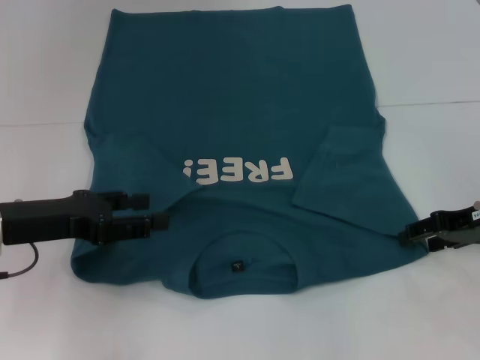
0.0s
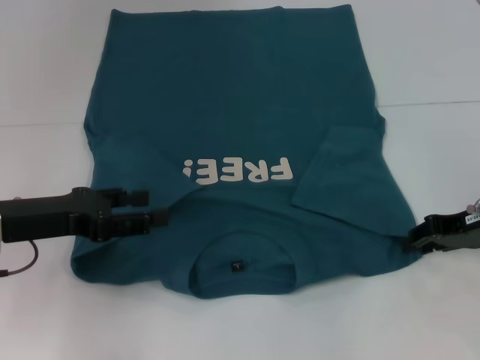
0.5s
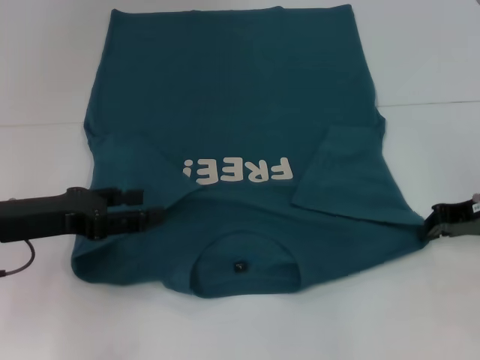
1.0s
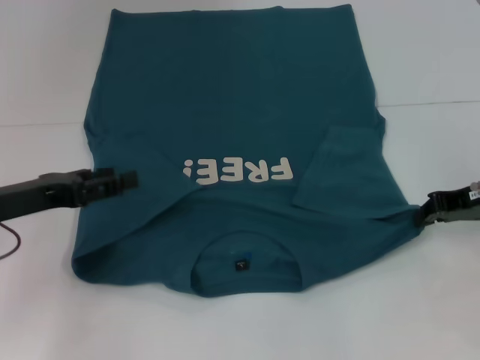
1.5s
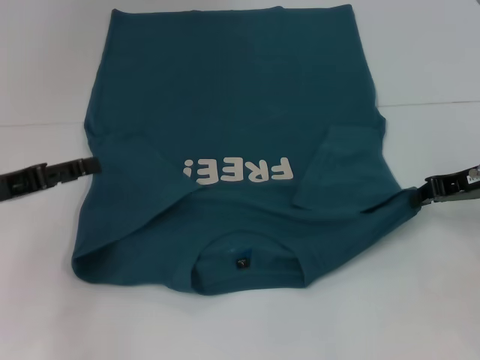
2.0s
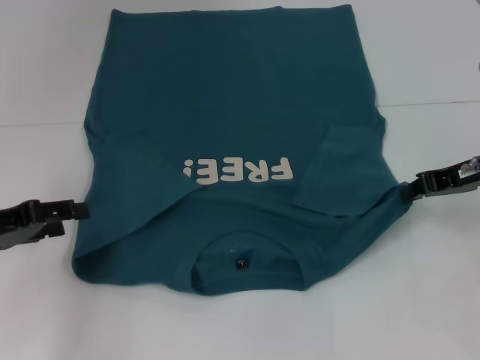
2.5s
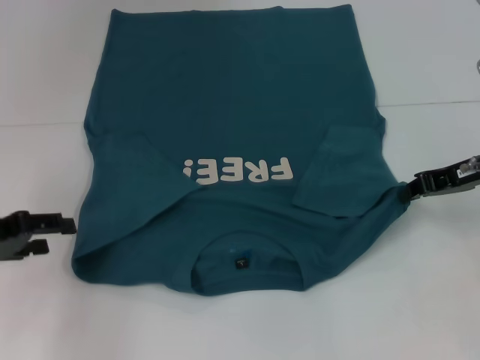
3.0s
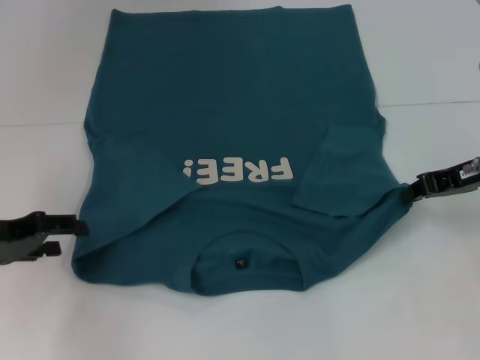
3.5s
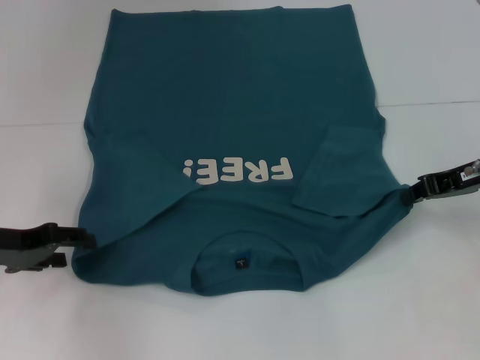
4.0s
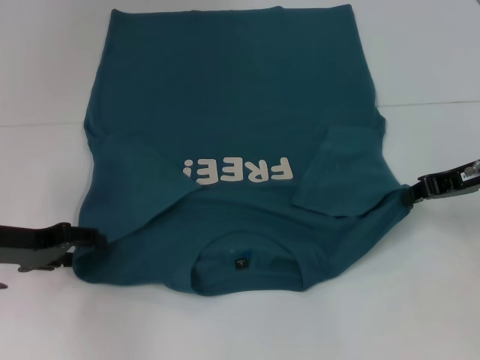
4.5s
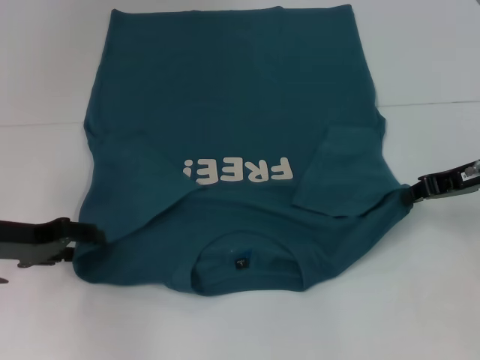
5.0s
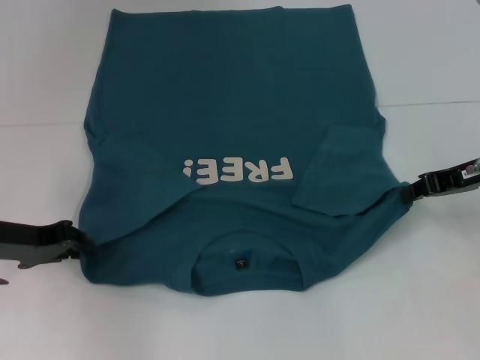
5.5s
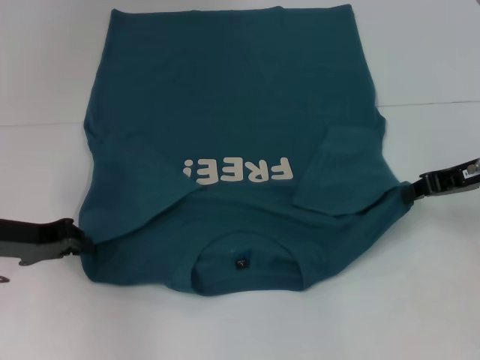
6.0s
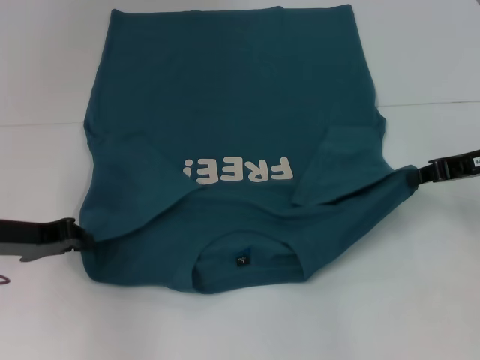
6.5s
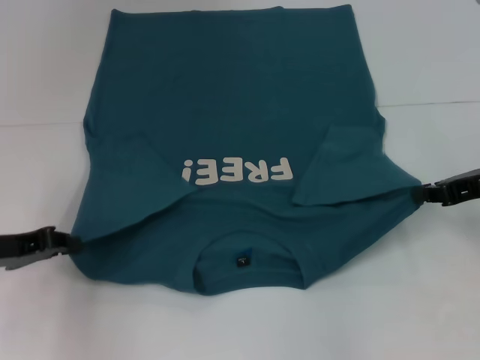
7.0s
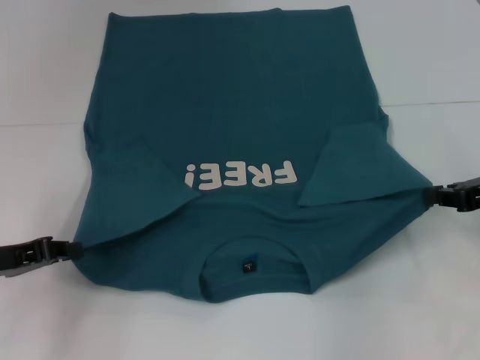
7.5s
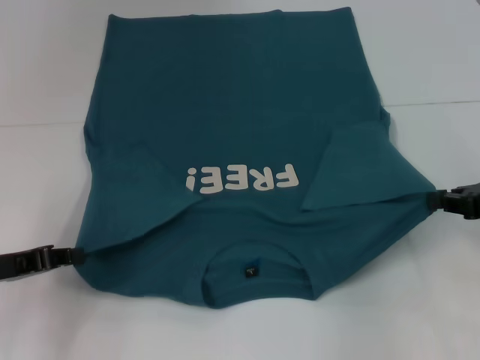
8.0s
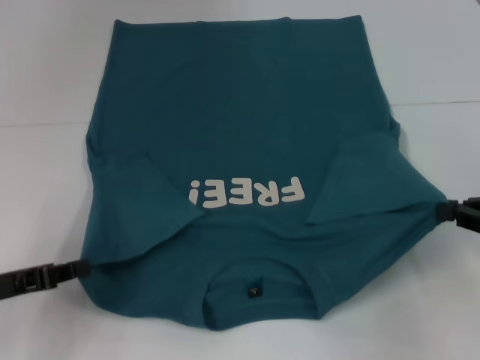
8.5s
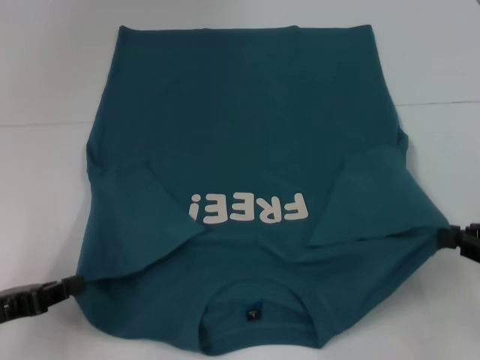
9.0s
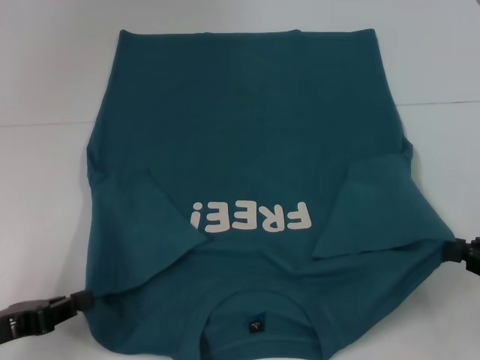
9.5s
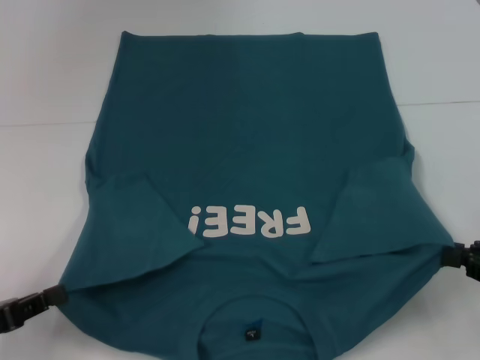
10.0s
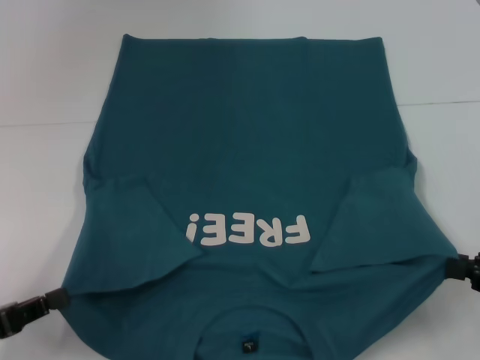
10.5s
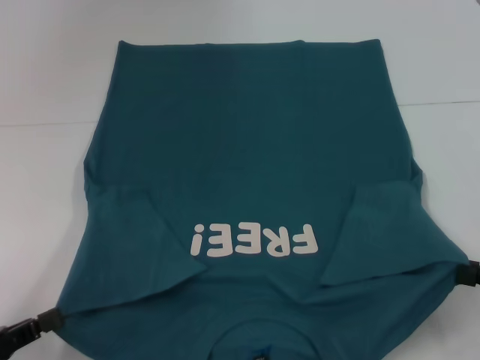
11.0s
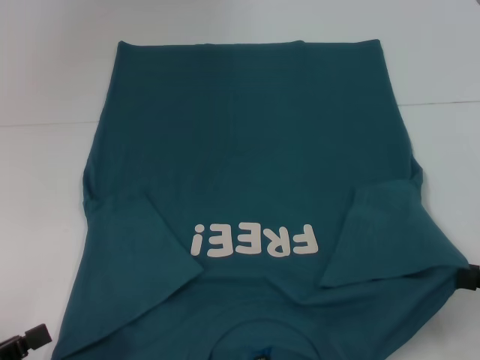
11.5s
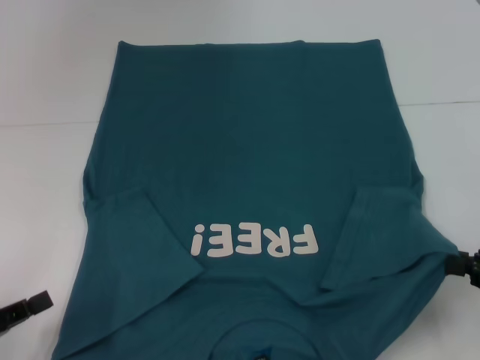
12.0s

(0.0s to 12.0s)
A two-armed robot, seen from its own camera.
Step, 1.0s - 6.0s: Grab the bottom left corner with your left hand.
0.0s - 2.0s: The right gripper closes.
4.0s - 6.0s: The left gripper closes its fingers.
6.0s - 8.0s: The two grippers go about 5 cm backward.
8.0s - 10.0s: The two grippers go some 10 cm backward.
10.0s - 12.0s: The grippers stay close to where they were, moving slightly.

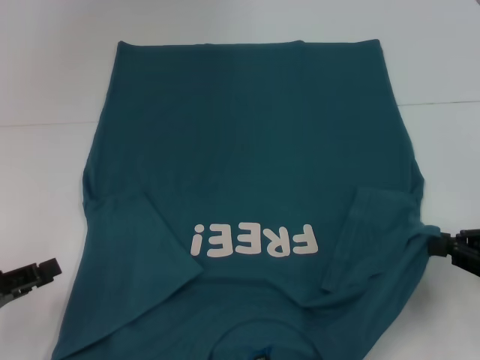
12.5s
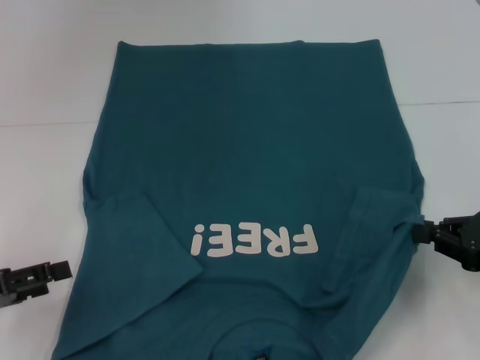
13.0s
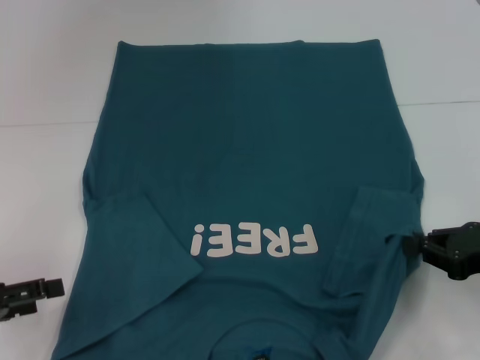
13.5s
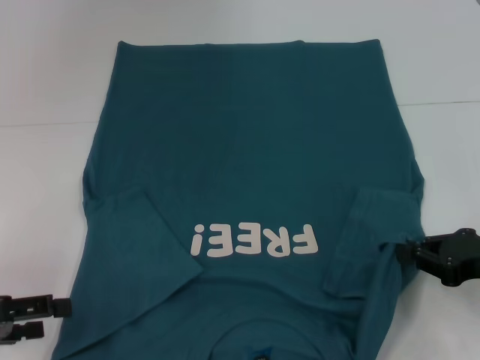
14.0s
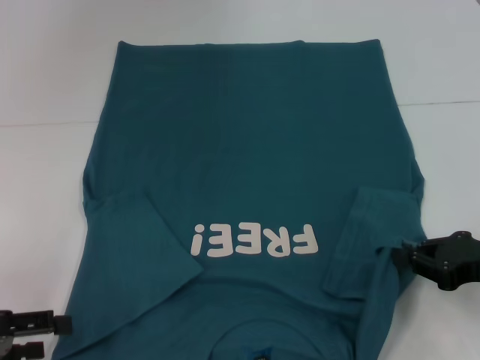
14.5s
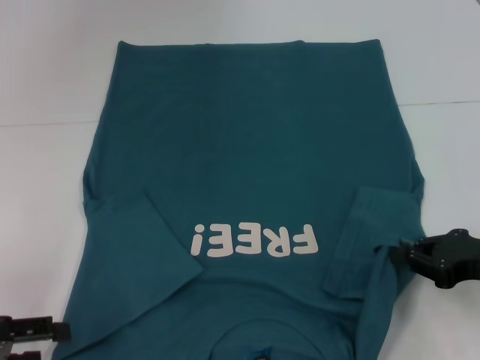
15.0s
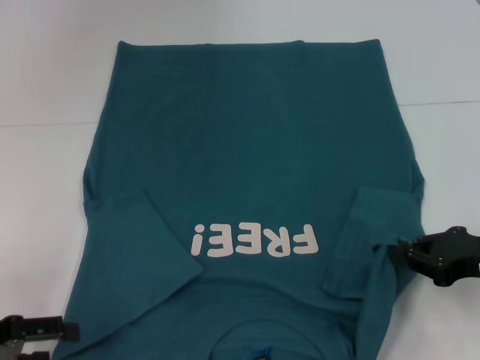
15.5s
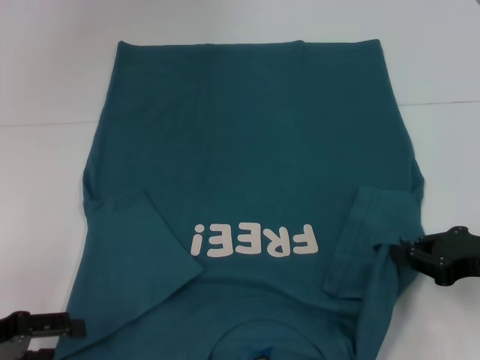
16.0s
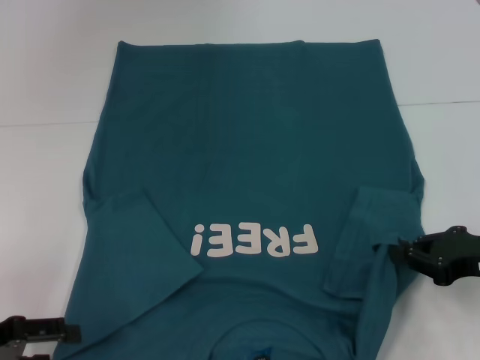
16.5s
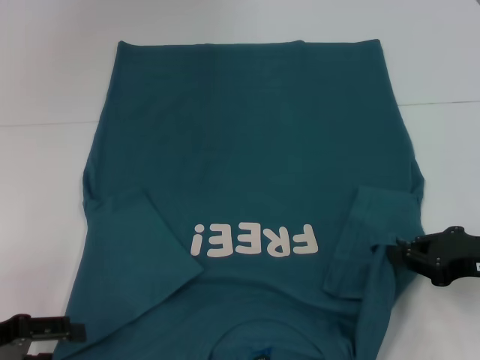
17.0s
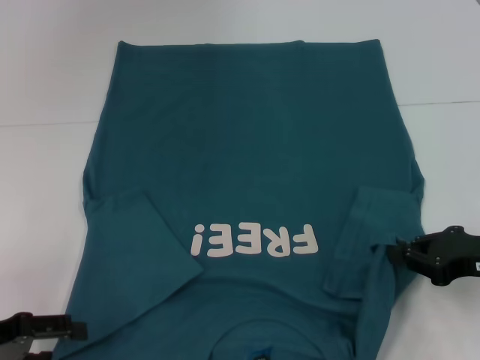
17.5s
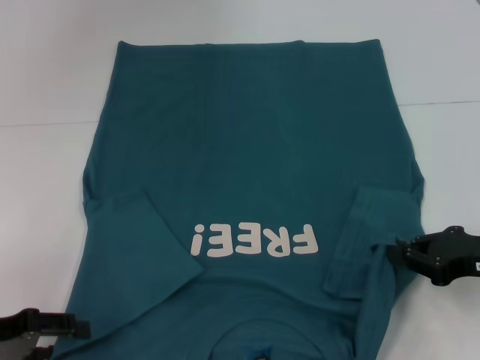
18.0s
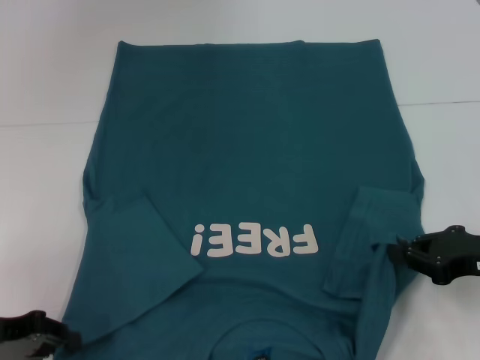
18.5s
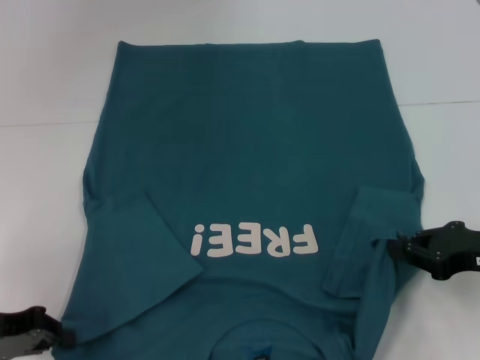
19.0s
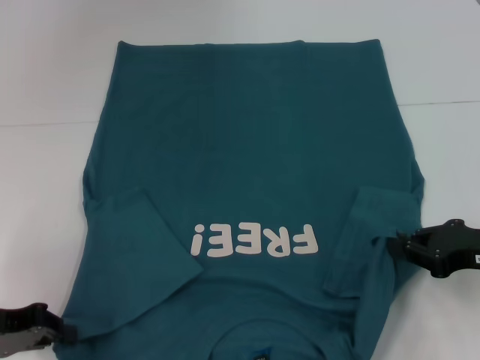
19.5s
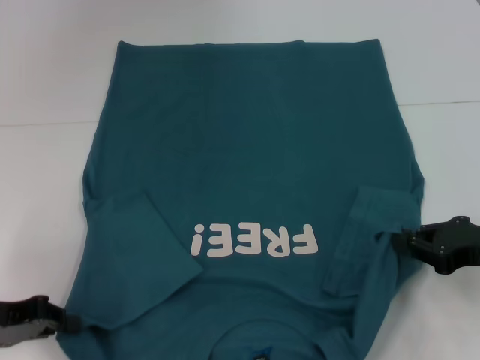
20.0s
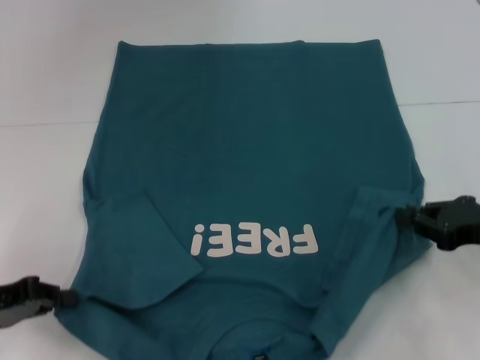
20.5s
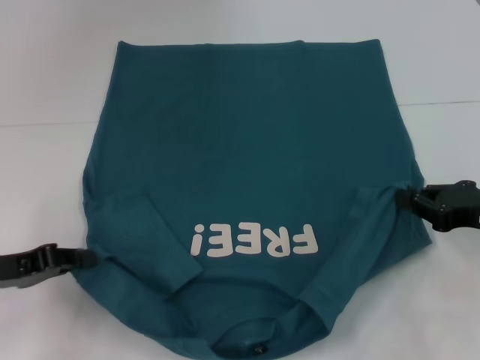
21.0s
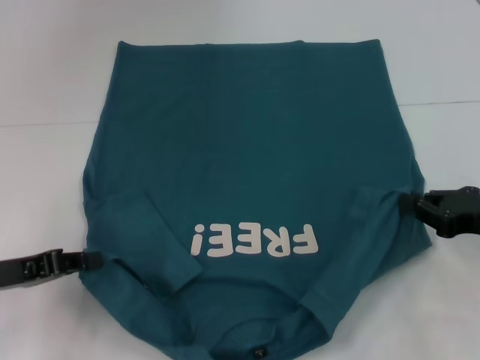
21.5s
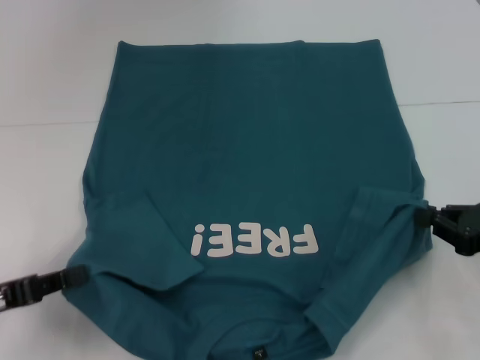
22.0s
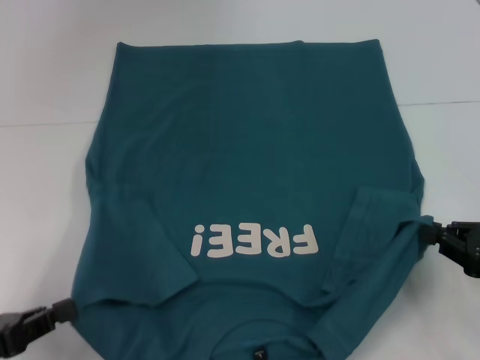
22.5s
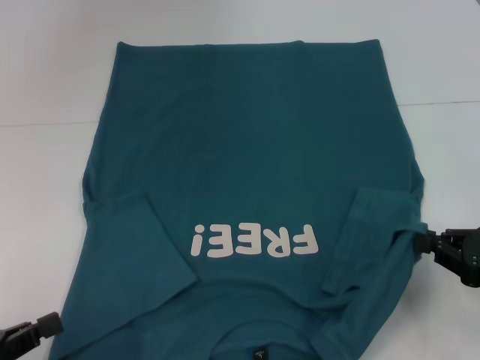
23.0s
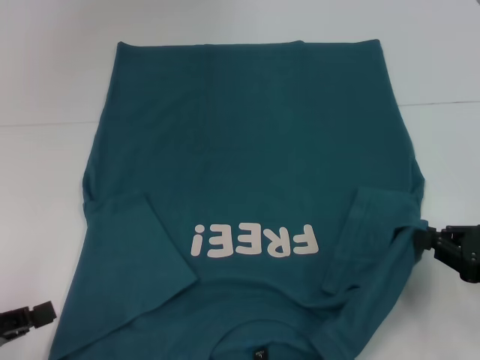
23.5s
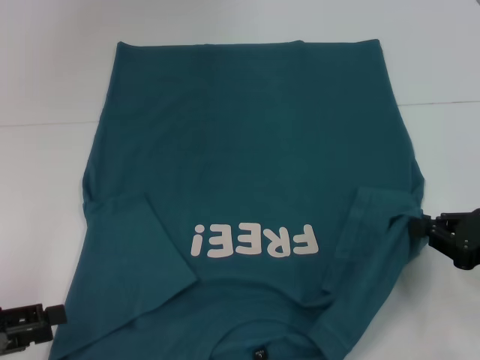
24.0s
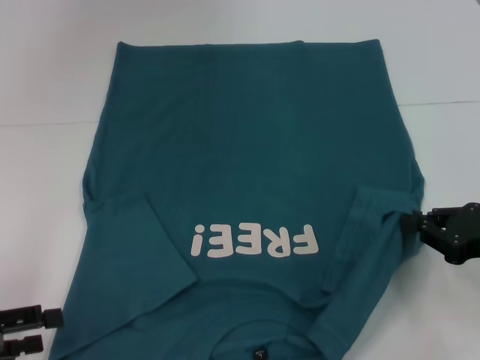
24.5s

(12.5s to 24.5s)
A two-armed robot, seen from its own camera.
12.5s - 14.5s: The left gripper opens up.
14.5s - 16.5s: The grippers make only small movements.
16.5s - 18.5s: The left gripper closes up.
18.5s - 20.5s: The left gripper closes.
20.5s - 22.5s: The left gripper heads backward, covering some 5 cm.
22.5s - 24.5s: The left gripper opens up.

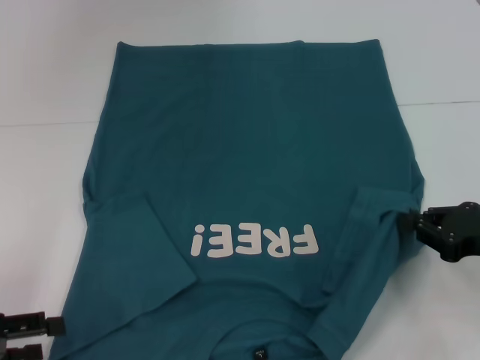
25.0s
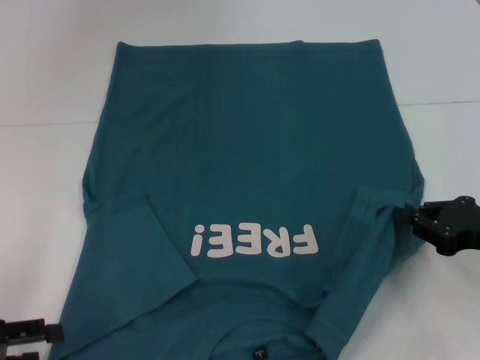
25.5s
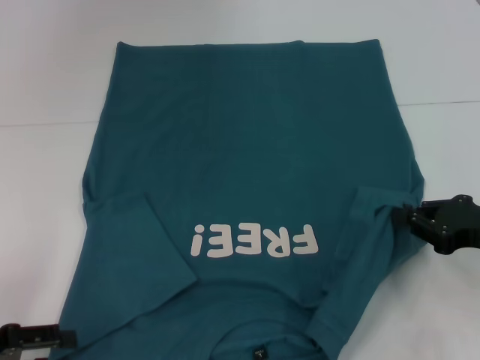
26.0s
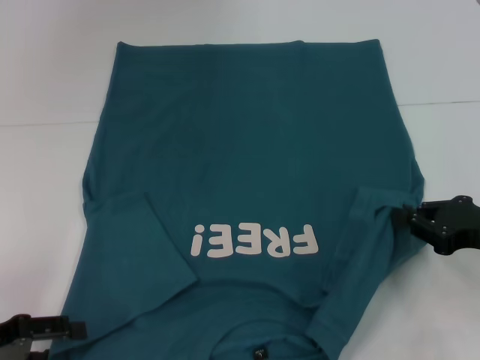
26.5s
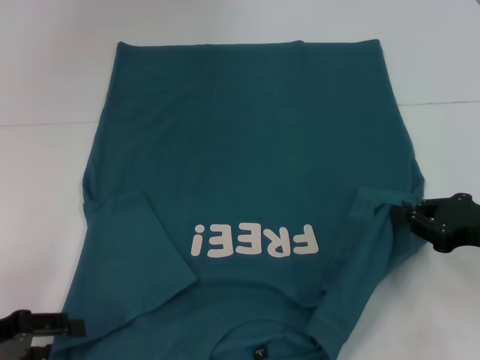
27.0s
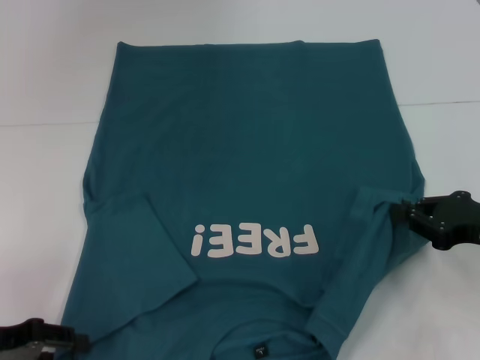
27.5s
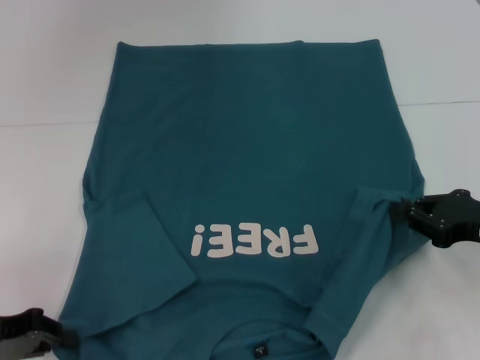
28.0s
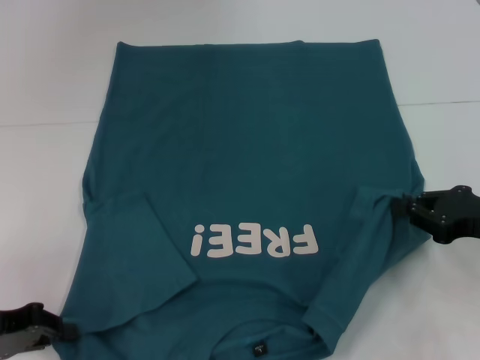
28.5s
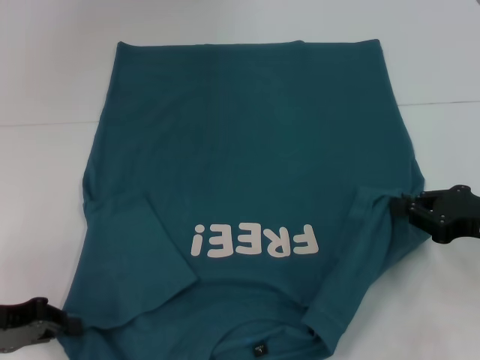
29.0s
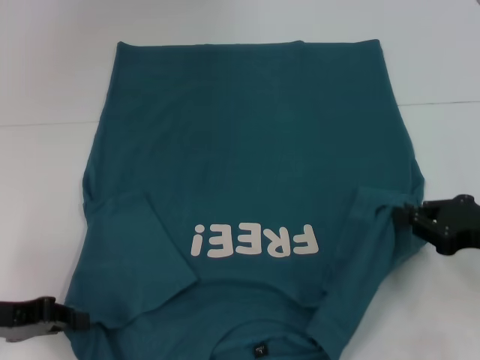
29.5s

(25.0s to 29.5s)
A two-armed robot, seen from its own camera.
25.0s - 27.0s: The grippers make only small movements.
27.0s - 29.5s: The left gripper closes.
